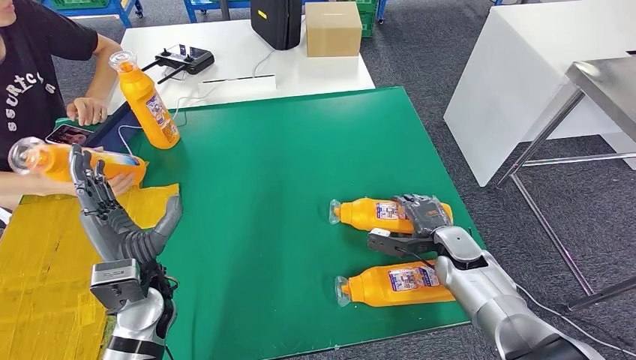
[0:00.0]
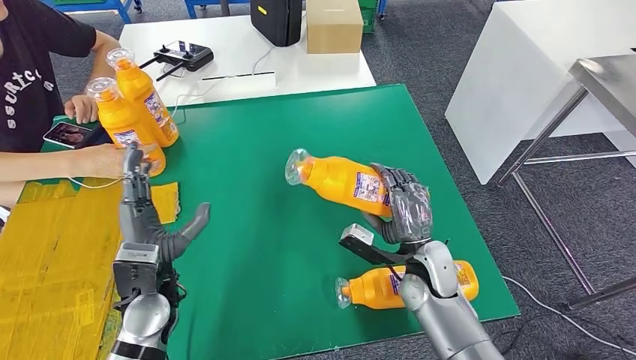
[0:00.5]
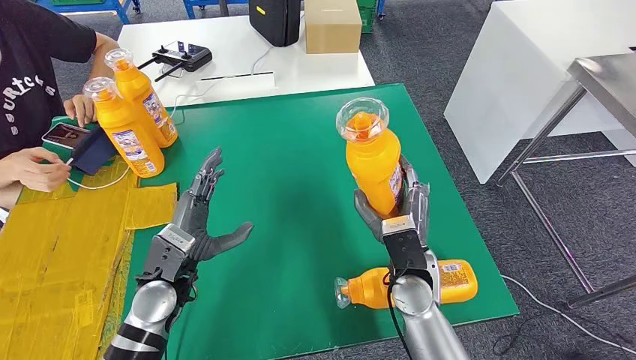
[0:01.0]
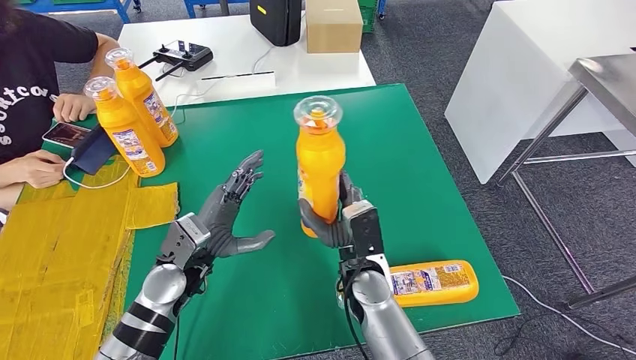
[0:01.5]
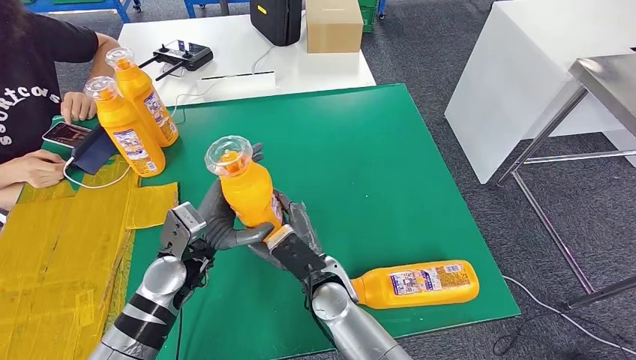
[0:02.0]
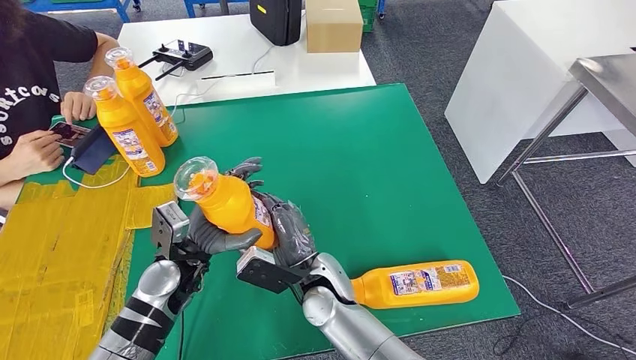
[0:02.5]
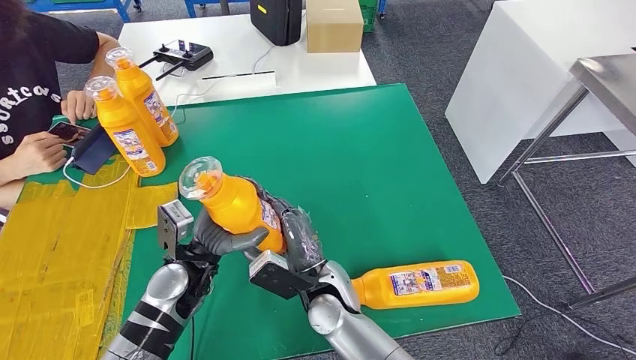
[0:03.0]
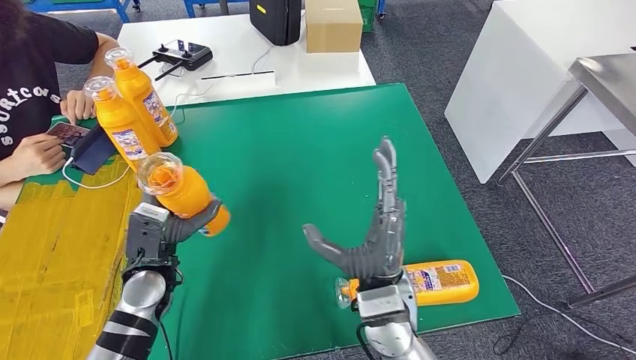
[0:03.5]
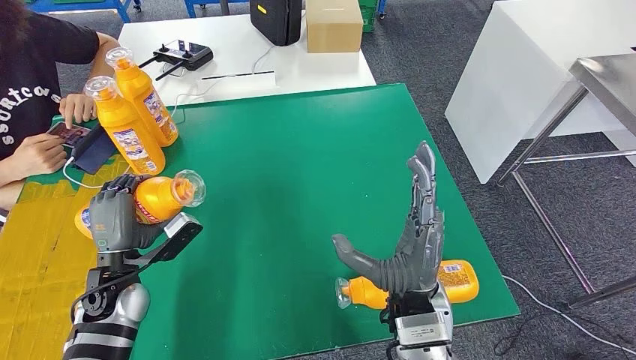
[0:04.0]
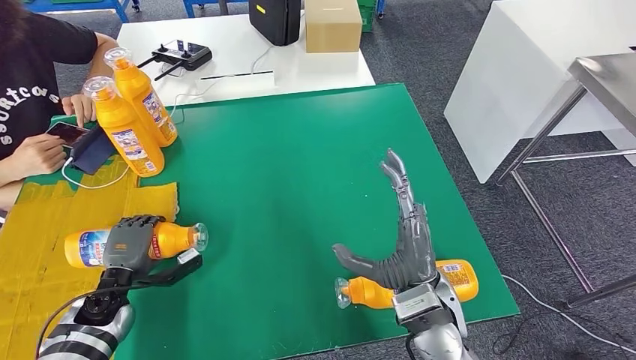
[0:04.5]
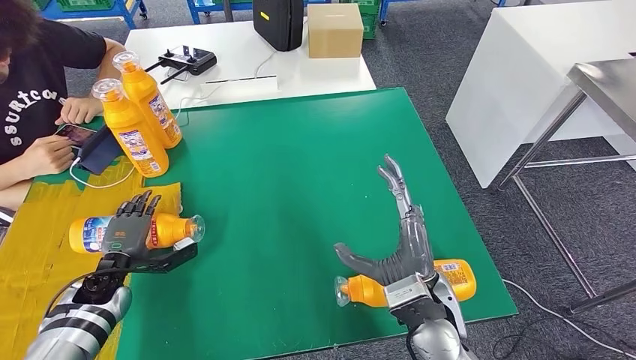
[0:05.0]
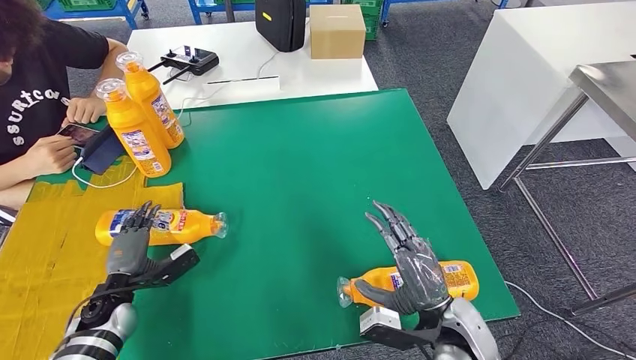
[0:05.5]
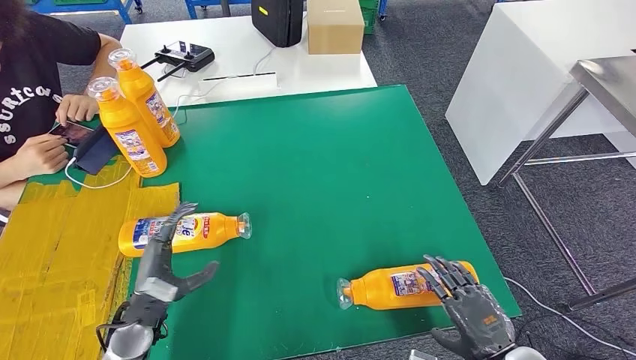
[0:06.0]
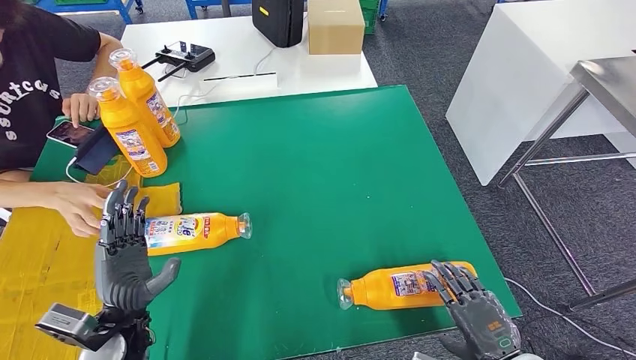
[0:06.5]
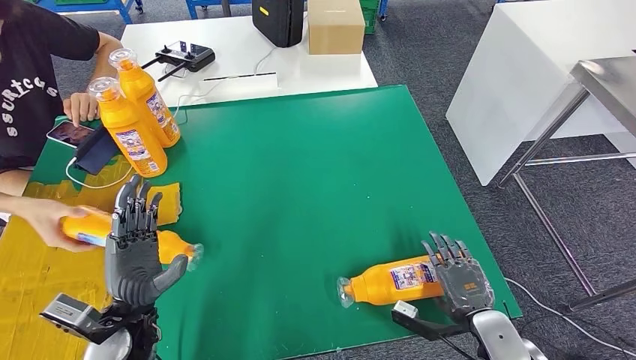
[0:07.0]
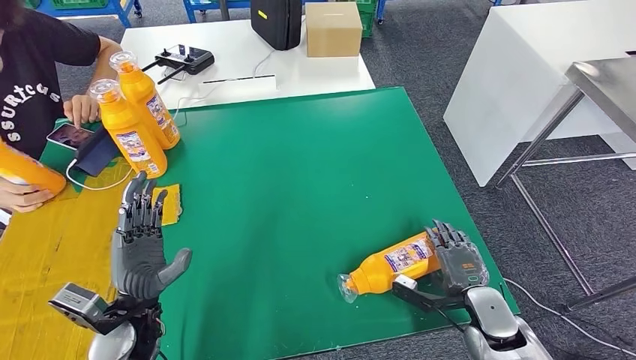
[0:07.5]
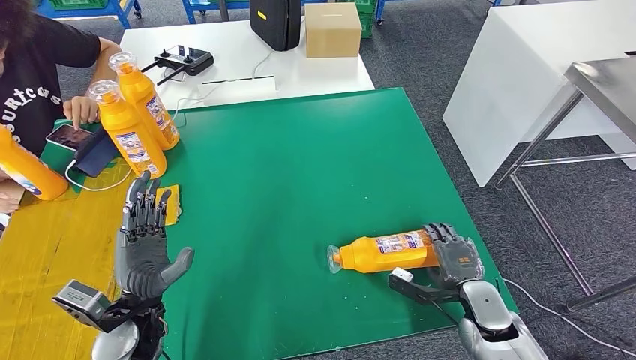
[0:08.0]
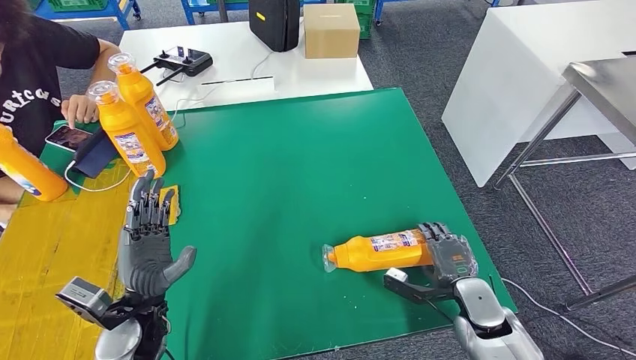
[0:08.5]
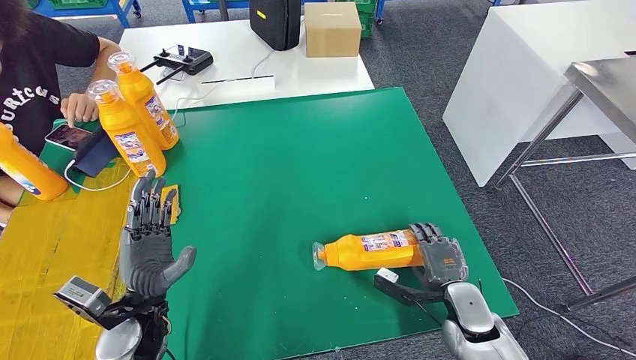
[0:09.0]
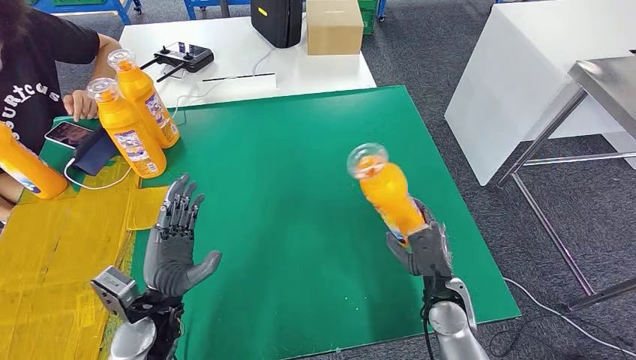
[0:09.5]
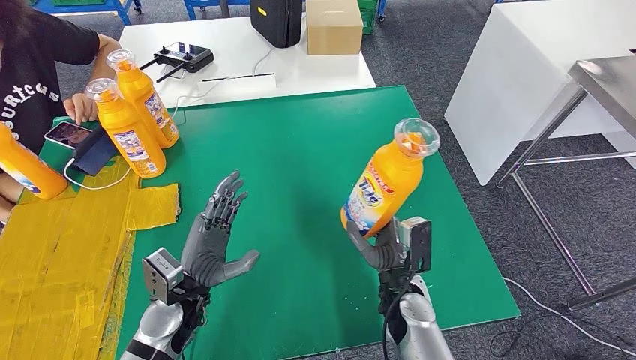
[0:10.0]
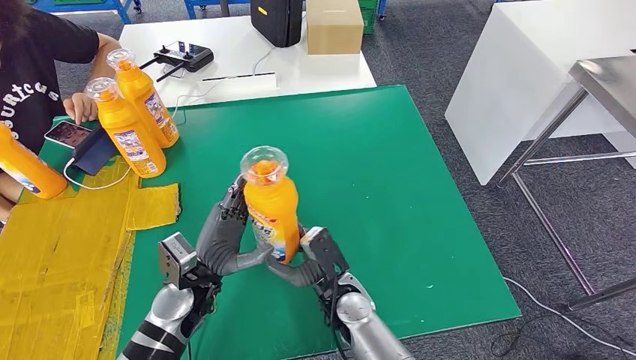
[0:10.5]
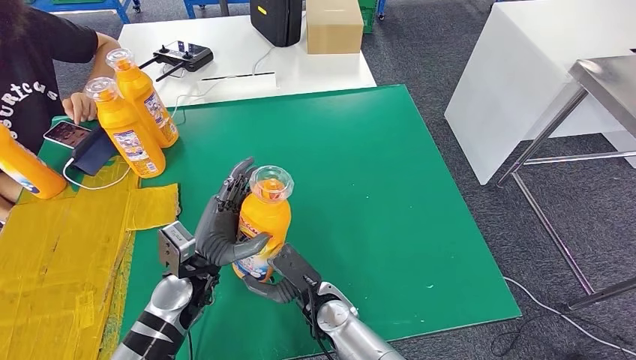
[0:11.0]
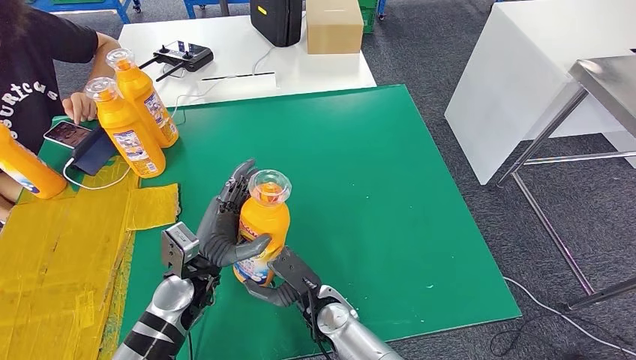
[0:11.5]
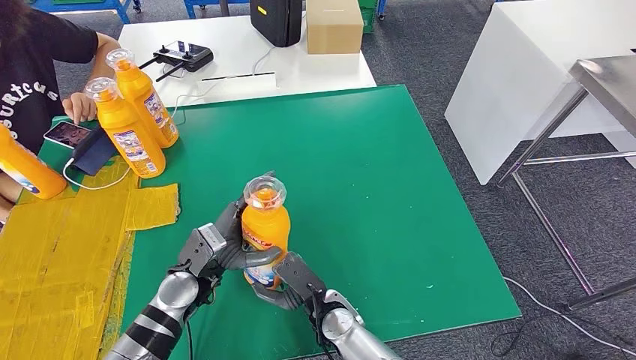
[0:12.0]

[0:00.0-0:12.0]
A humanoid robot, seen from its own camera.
Step, 0:00.0 to 0:02.0: Pick up the bottle from the table.
Step, 0:03.0 to 0:06.0: Flip the bottle to face forward.
Step, 0:06.5 to 0:11.0: Pick up the bottle from the table.
0:02.0 to 0:04.0: The left hand shifts some 10 cm to the left. Meanwhile the right hand shifts approximately 15 cm to the right, upward and backward.
0:04.0 to 0:06.0: The right hand moves to the right, downward and backward, roughly 20 cm; the left hand heads downward and backward, covering roughly 10 cm, and moves some 10 cm to the left and comes back.
0:10.0 to 0:12.0: The right hand travels to the left by approximately 10 cm.

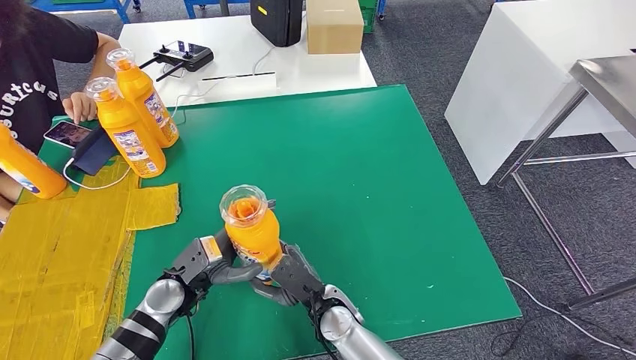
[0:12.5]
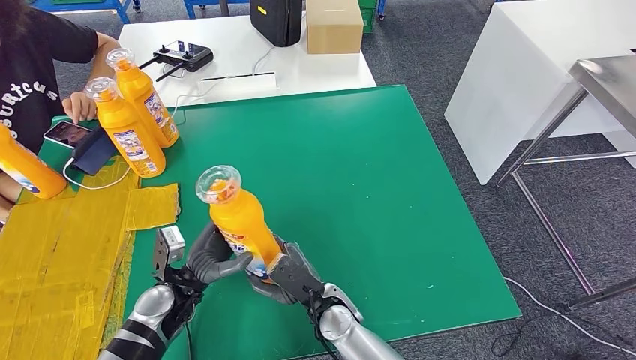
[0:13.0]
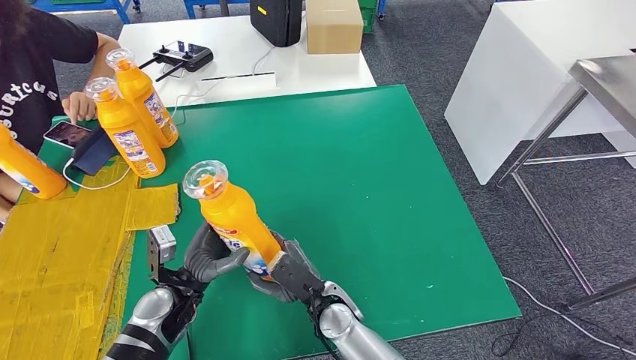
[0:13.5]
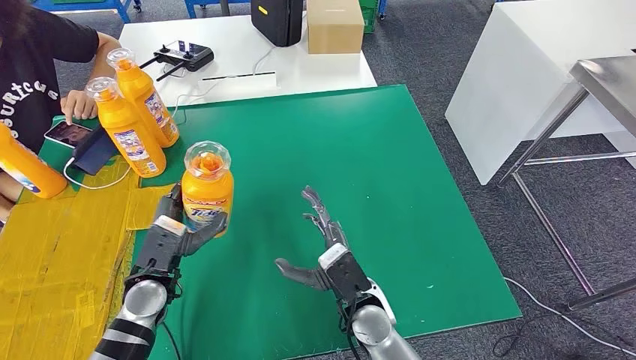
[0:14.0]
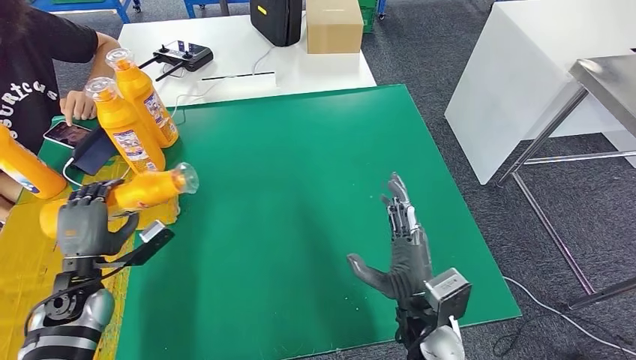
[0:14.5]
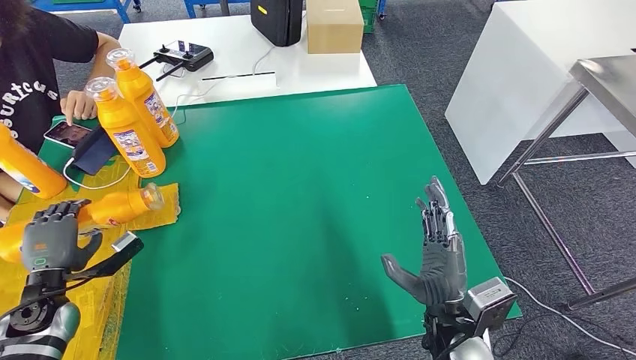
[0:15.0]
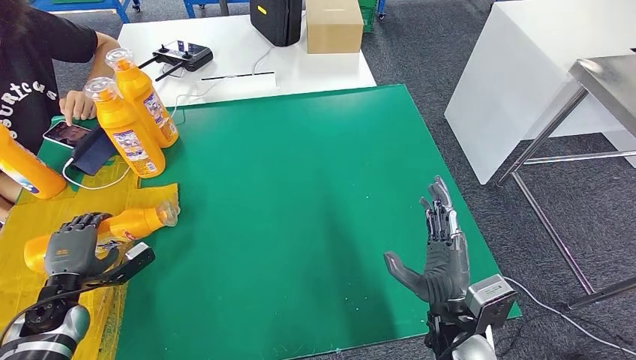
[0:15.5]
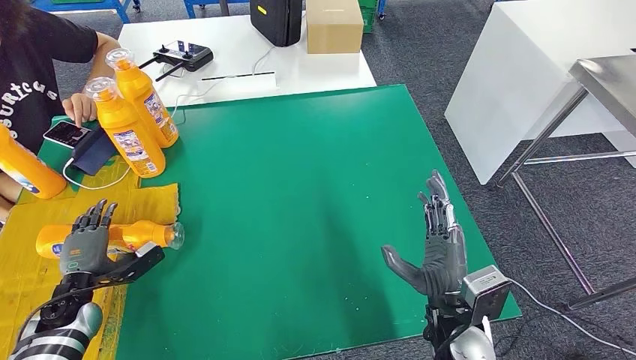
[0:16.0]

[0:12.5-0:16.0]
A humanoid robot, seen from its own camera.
Step, 0:12.5 to 0:16.0: Flip the bottle to face forward.
0:12.5 to 0:14.5: The right hand shifts approximately 15 cm to the right and upward, while the left hand moves to the left, roughly 15 cm.
0:14.5 to 0:16.0: The left hand shifts roughly 10 cm downward and to the left.
